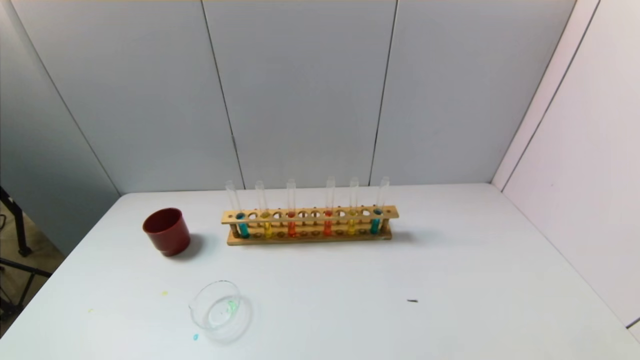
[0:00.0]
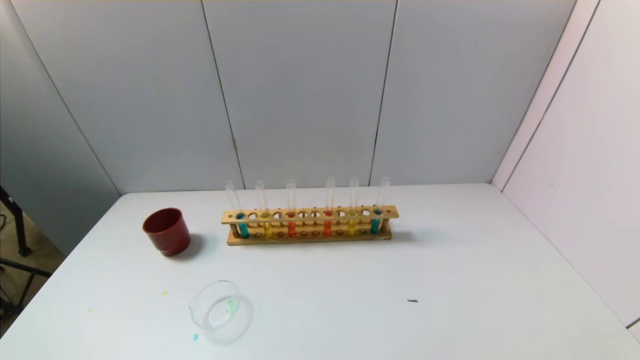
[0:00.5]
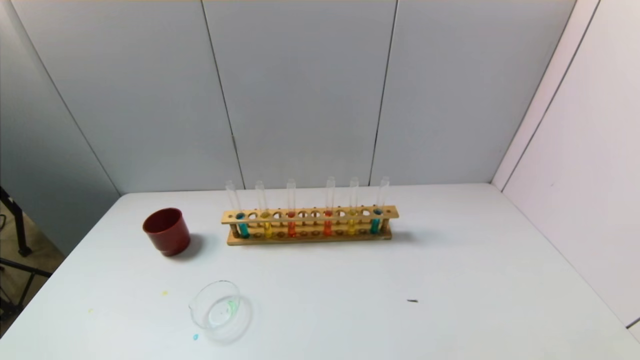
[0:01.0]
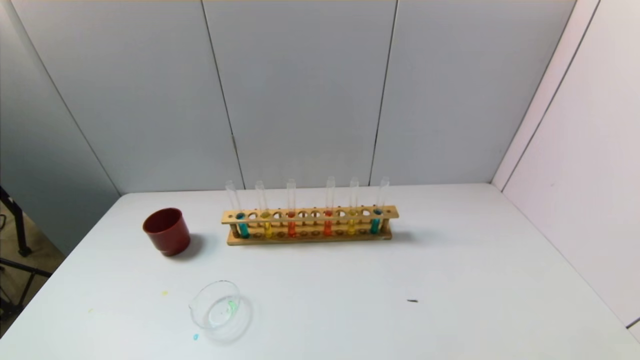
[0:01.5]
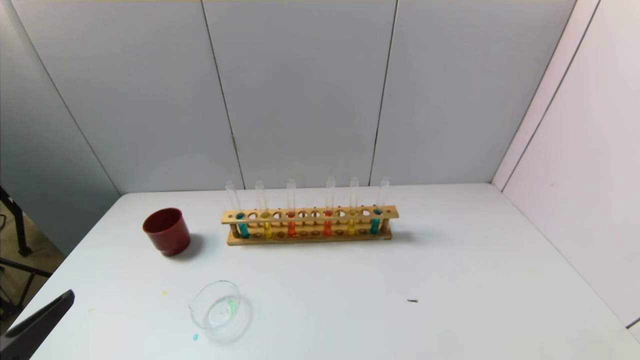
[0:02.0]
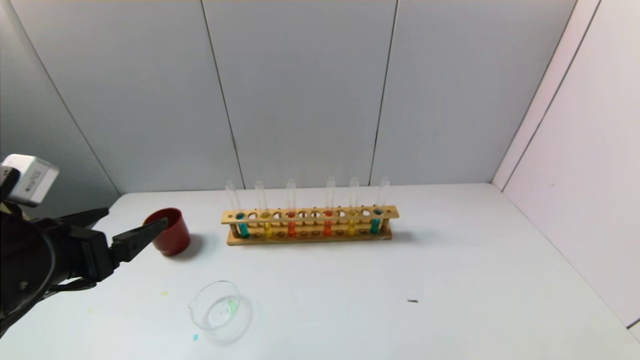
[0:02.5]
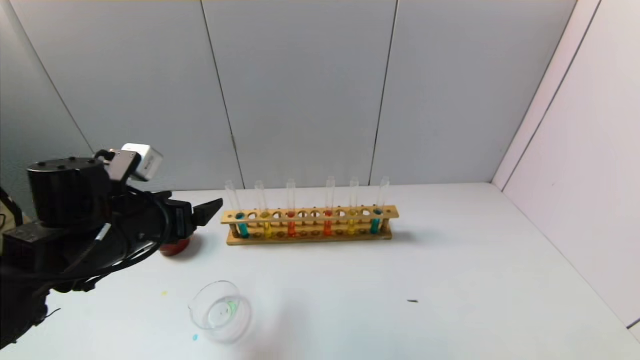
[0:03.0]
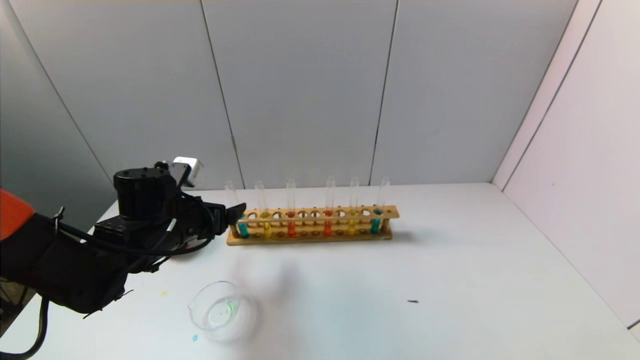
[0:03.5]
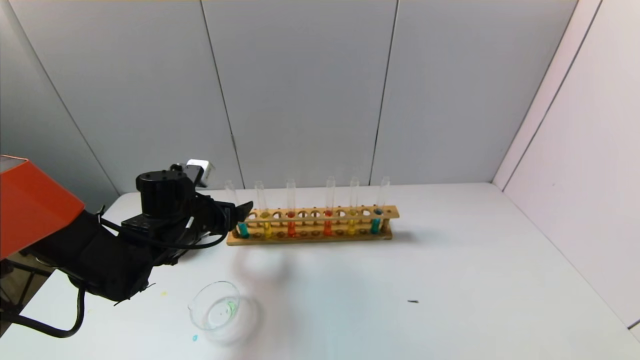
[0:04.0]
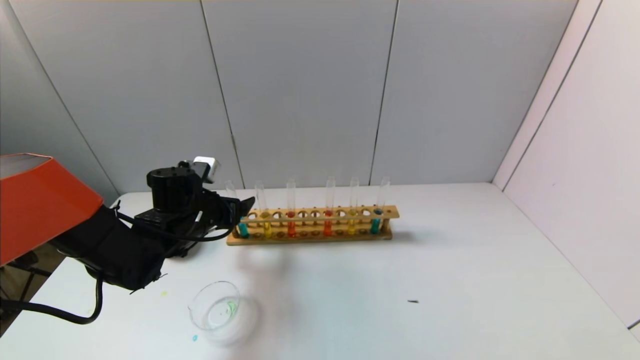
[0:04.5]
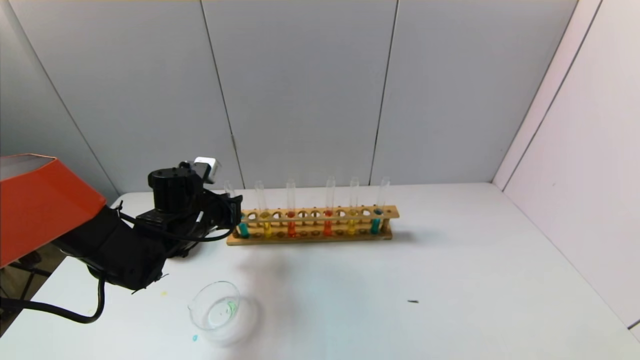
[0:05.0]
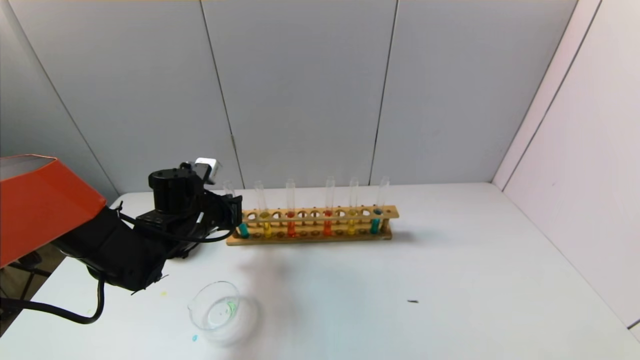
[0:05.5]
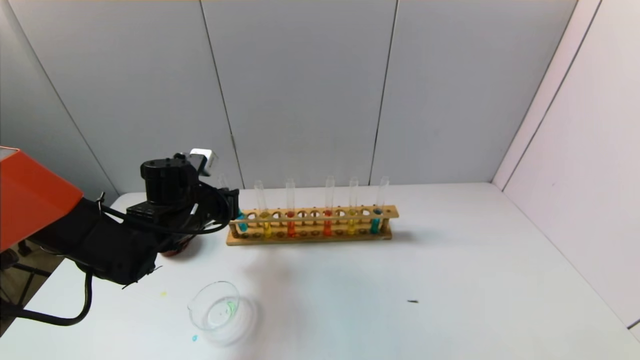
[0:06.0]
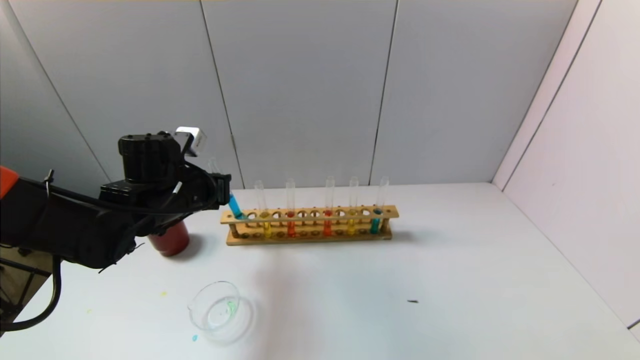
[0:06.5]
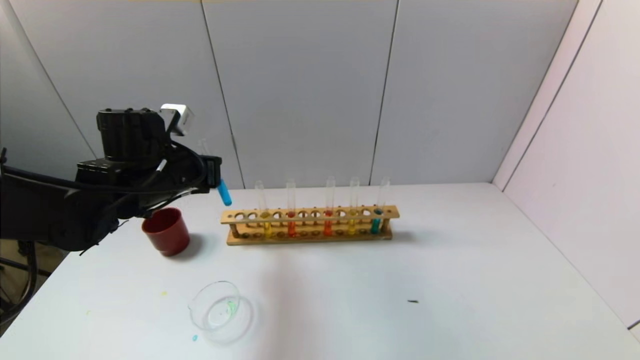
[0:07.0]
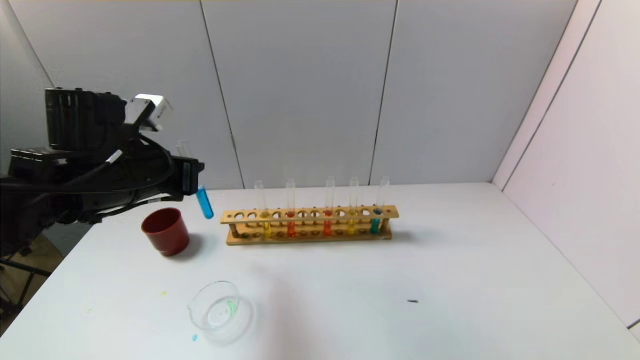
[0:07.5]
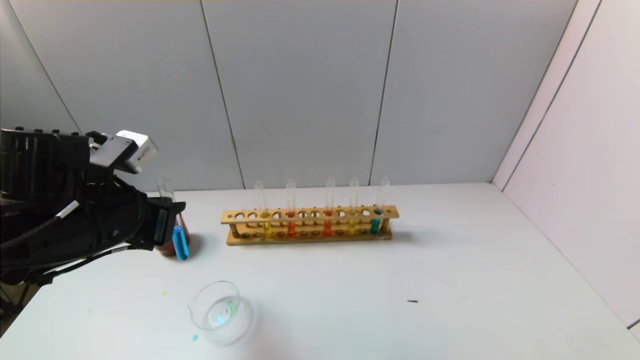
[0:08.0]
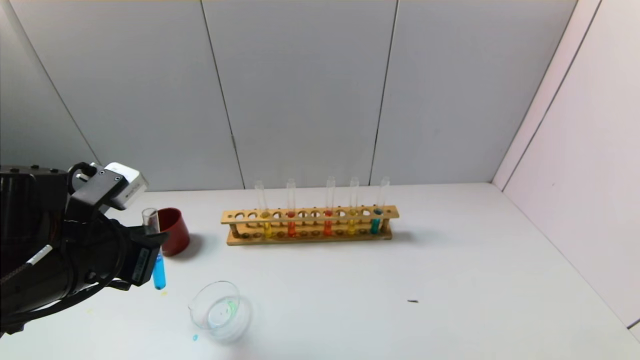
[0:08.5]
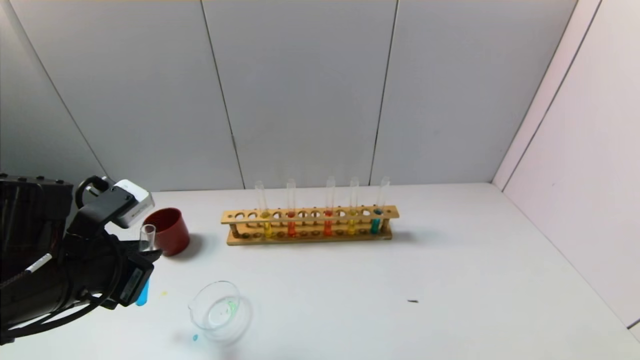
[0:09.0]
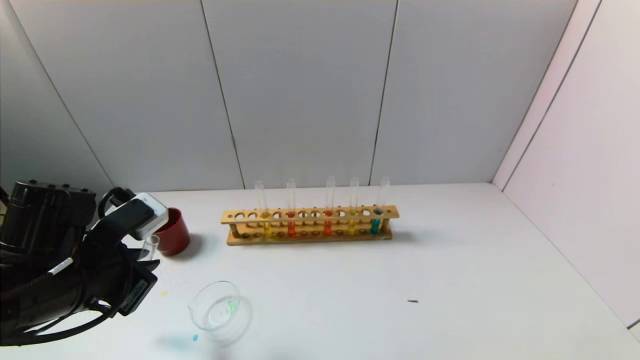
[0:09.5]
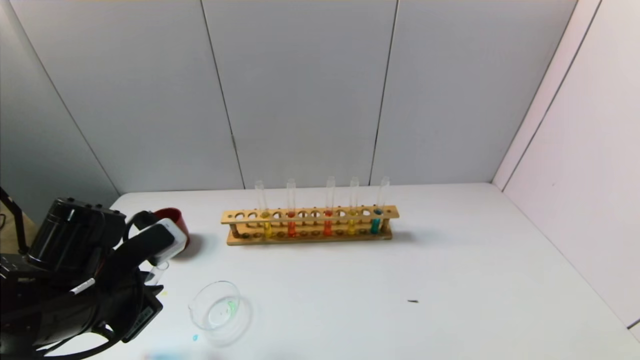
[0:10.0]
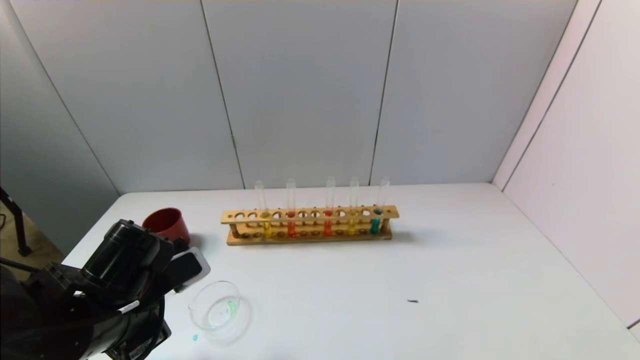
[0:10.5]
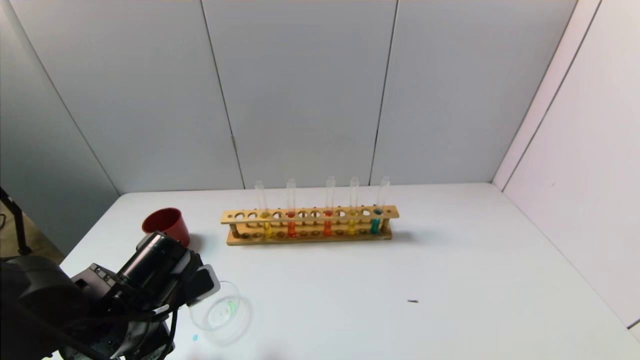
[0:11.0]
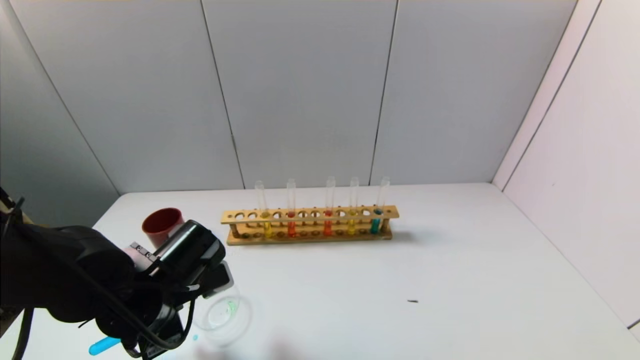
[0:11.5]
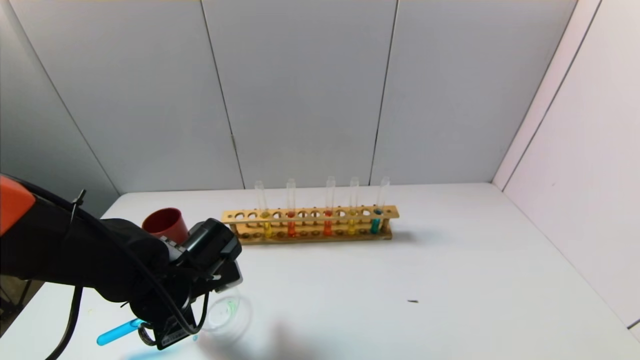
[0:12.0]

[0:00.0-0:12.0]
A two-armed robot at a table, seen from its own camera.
Task of the whole recording: pick up the test tube with yellow pigment and the test tube with blue pigment by grippers and pour them into the beaker.
Step, 0:00.0 to 0:05.5: Grasp the blue reagent with the left gripper.
0:00.0 to 0:02.0: The left gripper travels upward and forward by some 15 cm.
0:02.0 to 0:04.0: The left gripper heads forward, covering roughly 30 cm.
0:04.0 to 0:06.0: The left gripper closes.
0:06.0 to 0:08.0: The left gripper moves backward and upward, roughly 15 cm.
0:08.0 to 0:10.0: The left gripper travels downward by about 5 cm.
0:10.0 to 0:12.0: The left gripper goes roughly 10 cm downward, to the right and forward.

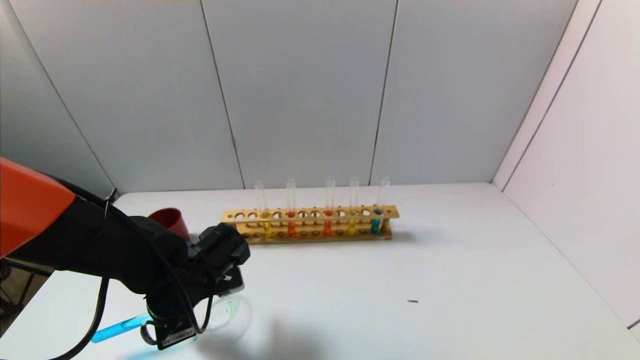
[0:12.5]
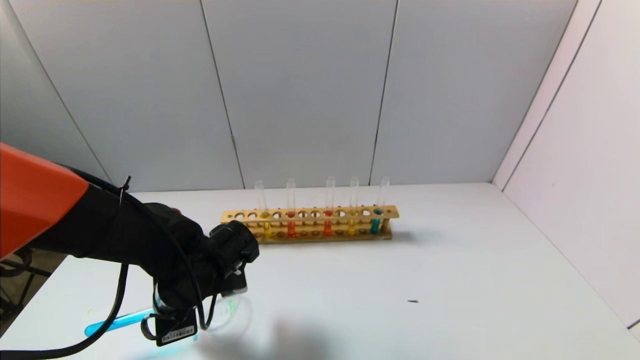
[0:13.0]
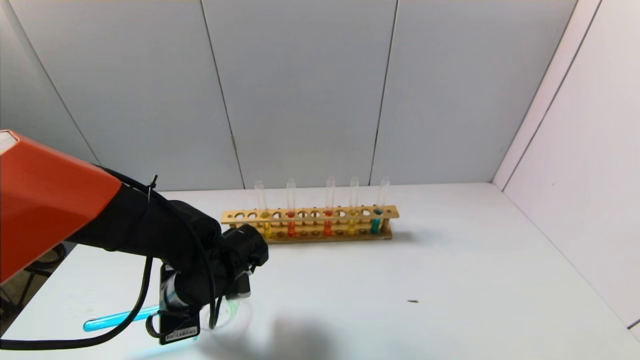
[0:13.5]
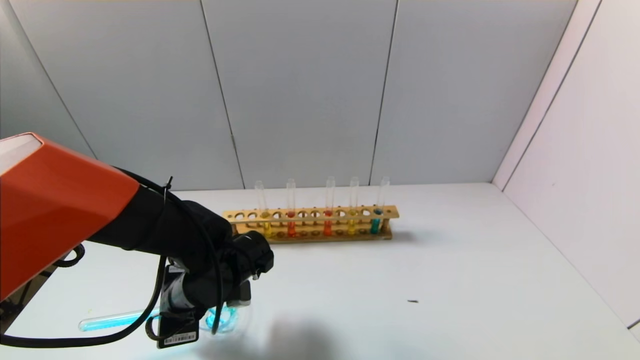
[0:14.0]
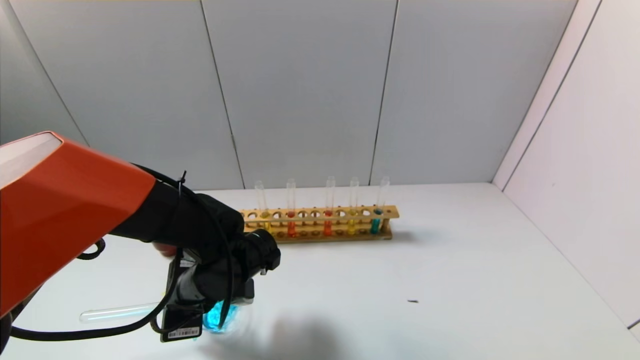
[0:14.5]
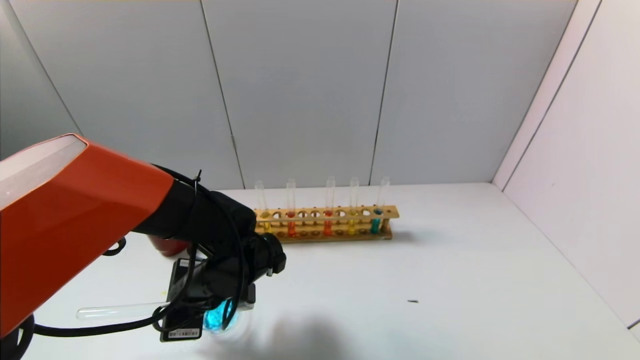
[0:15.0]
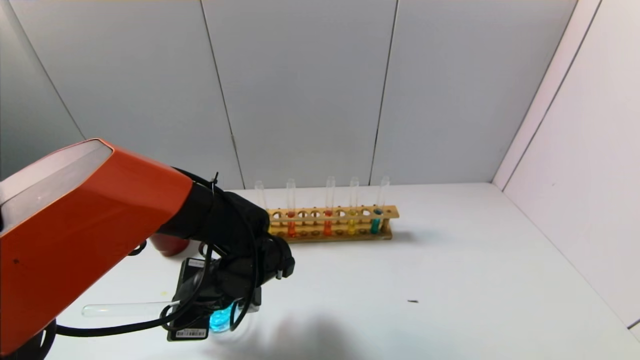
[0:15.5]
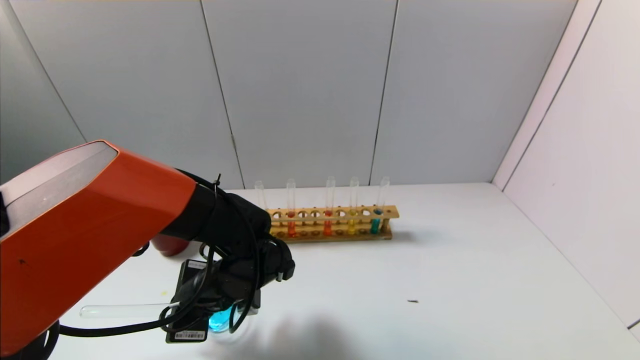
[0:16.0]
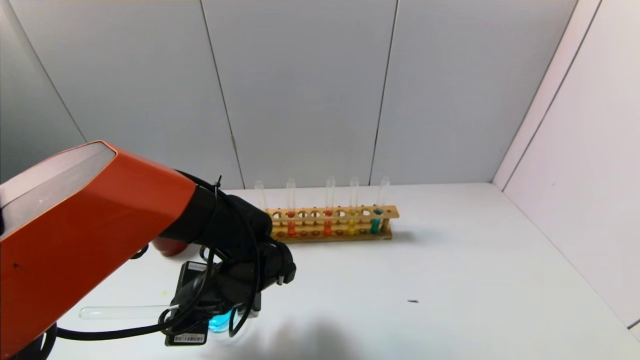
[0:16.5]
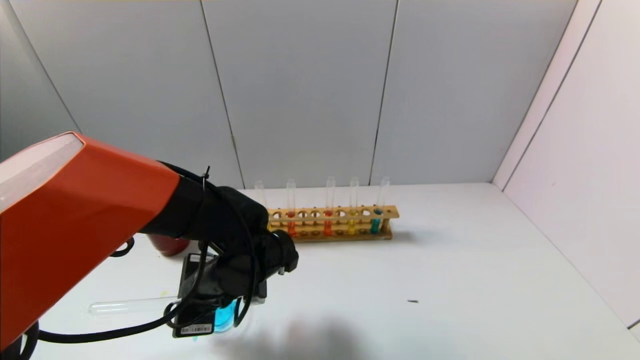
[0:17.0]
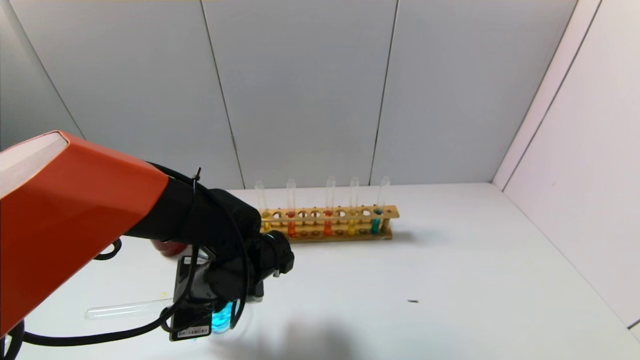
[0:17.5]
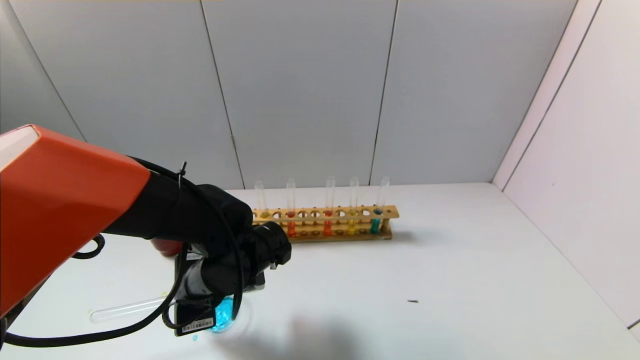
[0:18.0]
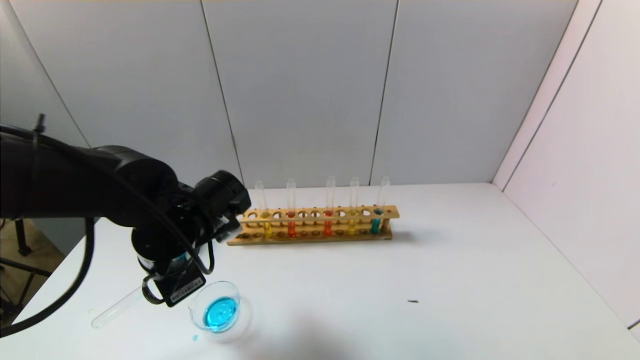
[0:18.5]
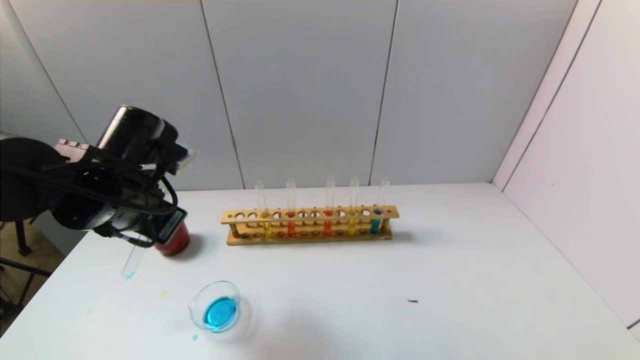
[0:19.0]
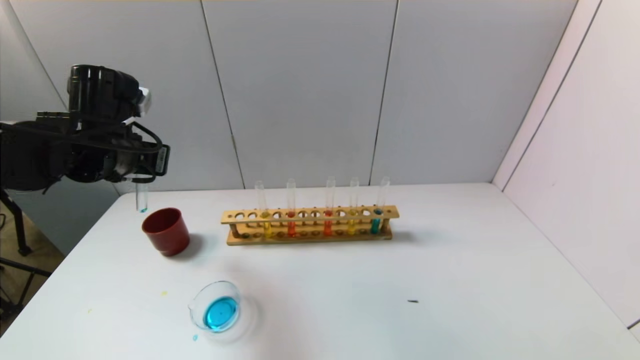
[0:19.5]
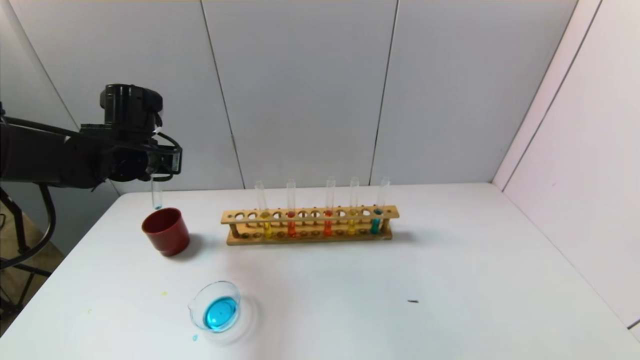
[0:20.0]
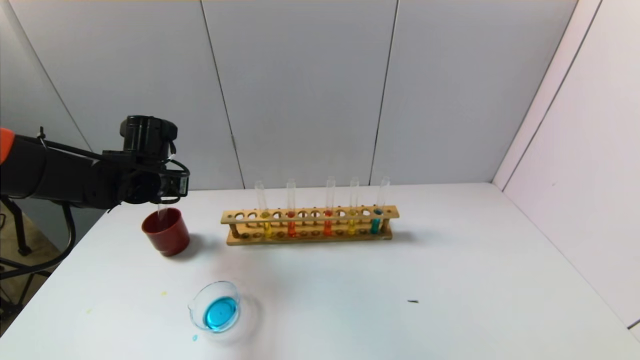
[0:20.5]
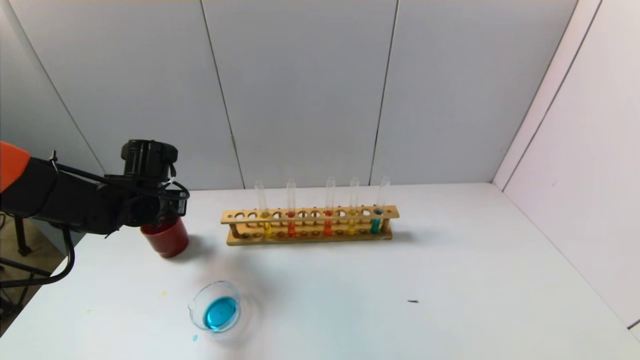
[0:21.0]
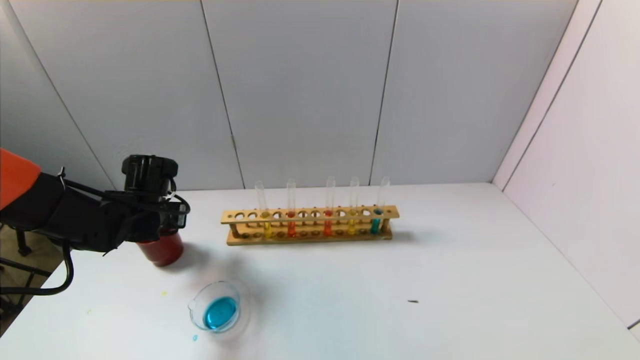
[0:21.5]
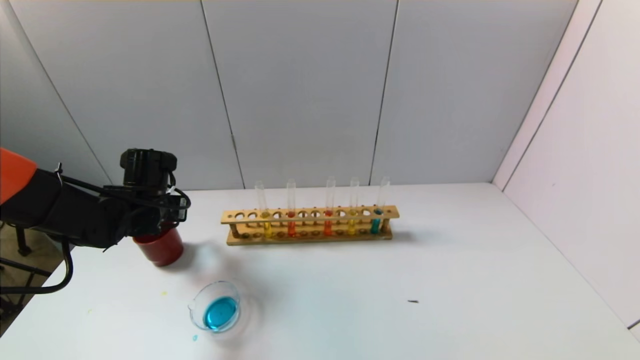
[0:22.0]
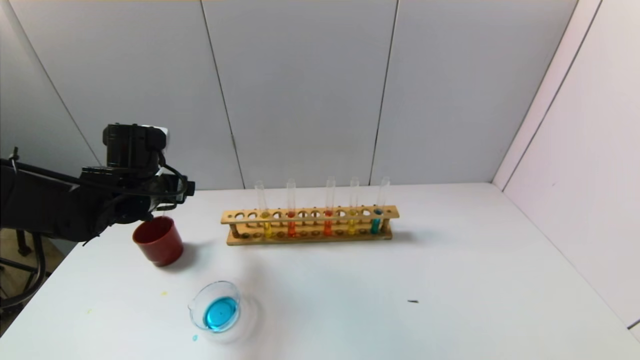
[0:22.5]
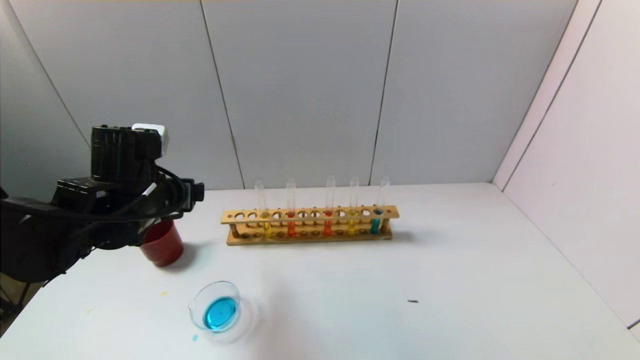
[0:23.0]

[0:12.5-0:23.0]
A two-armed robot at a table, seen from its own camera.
Task of the whole recording: pick up the test tube with yellow pigment and the test tube with blue pigment by grippers and pour them into the beaker.
Step, 0:12.5 to 0:16.5: Pour the blue reagent into the graduated cylinder with the left gripper.
Step, 0:17.0 to 0:22.0: Place the test tube into the brown cup with the left gripper.
0:12.5 to 0:14.5: The grippers move only a little.
0:14.5 to 0:16.5: The grippers make only small movements.
0:16.5 to 0:19.0: The left gripper moves upward and to the left, roughly 15 cm.
0:19.0 to 0:21.0: The left gripper is displaced forward, downward and to the left by some 15 cm.
0:21.0 to 0:23.0: The left gripper goes roughly 10 cm backward and upward, and opens its fingers.
